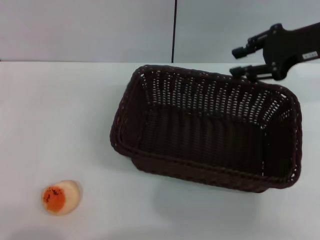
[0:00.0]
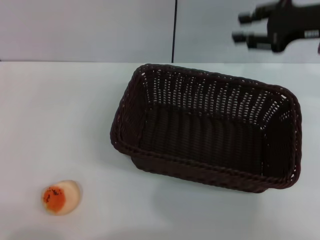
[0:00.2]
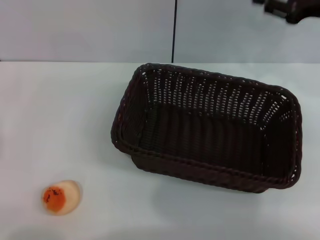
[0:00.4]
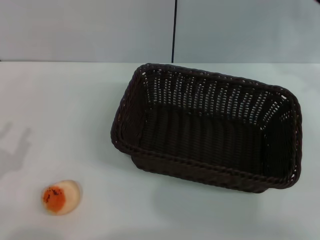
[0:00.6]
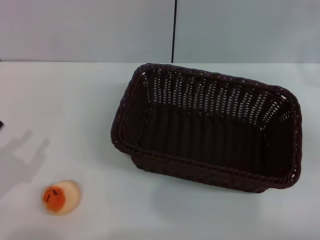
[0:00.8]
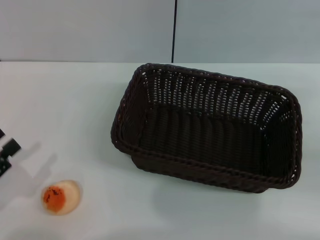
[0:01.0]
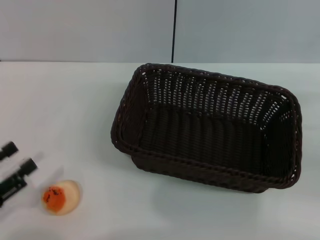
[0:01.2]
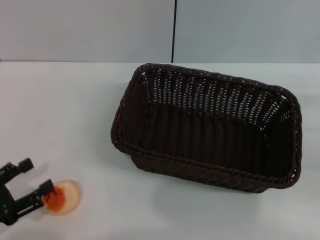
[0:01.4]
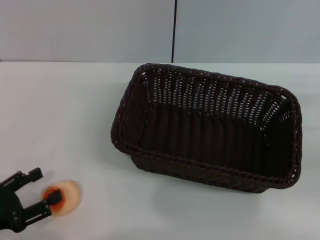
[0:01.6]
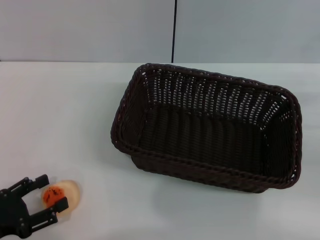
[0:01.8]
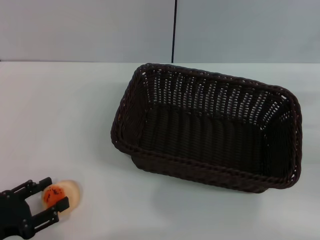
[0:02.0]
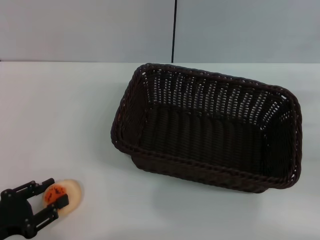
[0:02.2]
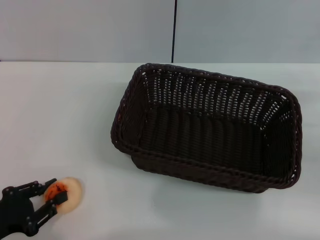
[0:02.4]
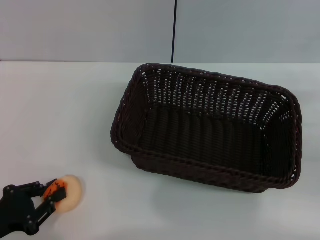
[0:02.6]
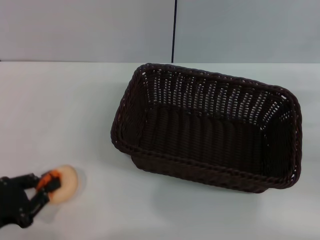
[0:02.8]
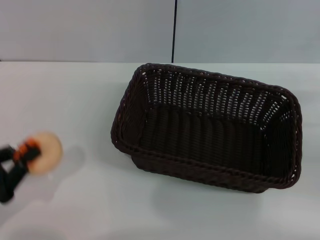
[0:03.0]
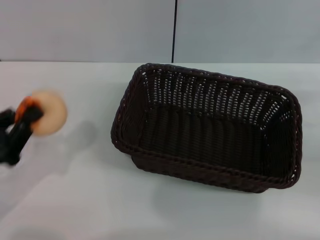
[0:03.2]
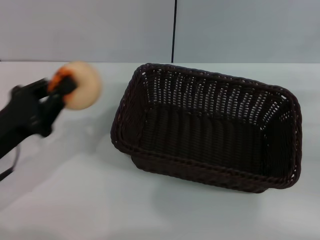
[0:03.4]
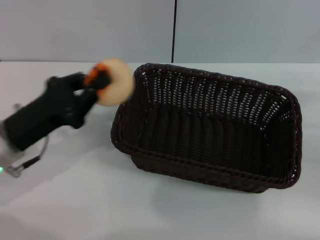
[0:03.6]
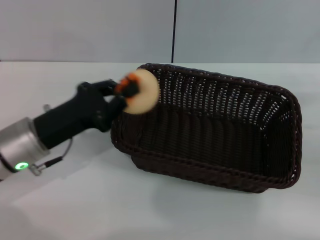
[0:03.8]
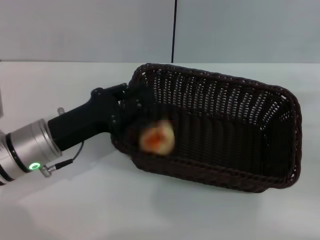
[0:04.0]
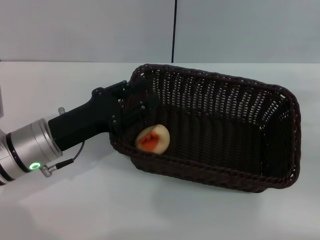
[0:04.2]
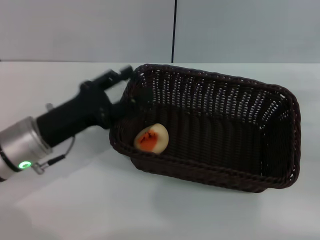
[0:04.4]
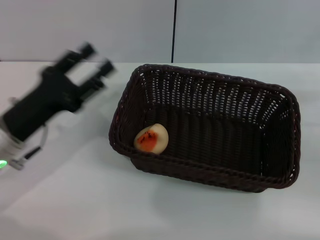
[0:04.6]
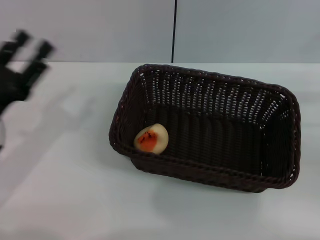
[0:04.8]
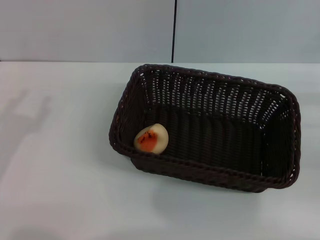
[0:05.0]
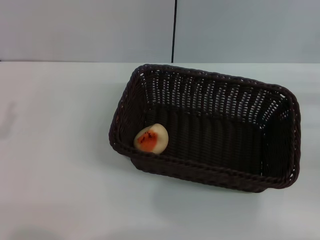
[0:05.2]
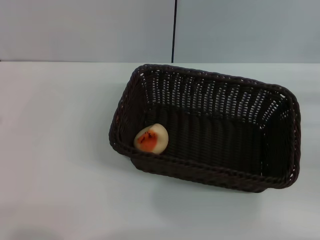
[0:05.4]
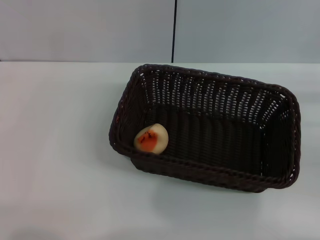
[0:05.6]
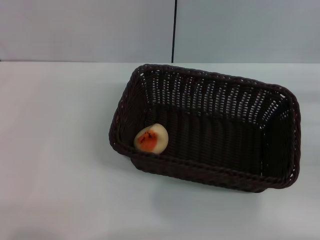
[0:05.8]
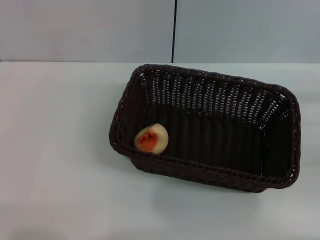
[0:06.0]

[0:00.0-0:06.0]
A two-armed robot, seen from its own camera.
Step, 0:00.2 to 0:03.0: Pick up the egg yolk pastry with the left gripper.
Step, 0:03.2 to 0:04.2: Place the egg yolk pastry into the basket with the left gripper.
0:00.0 to 0:01.6: The left gripper opens its fingers; the right gripper travels to the right, backward and downward by some 20 cm.
0:01.6 to 0:03.0: The left gripper closes its fingers.
0:03.0 to 0:04.4: The left gripper travels forward and to the right by approximately 15 cm, and opens.
0:04.4 to 0:06.0: The left gripper moves to the left and backward, some 15 cm.
